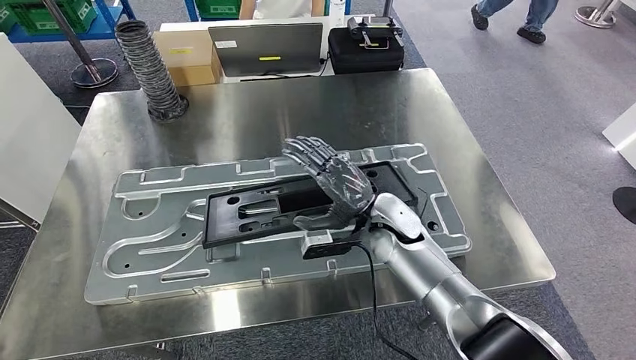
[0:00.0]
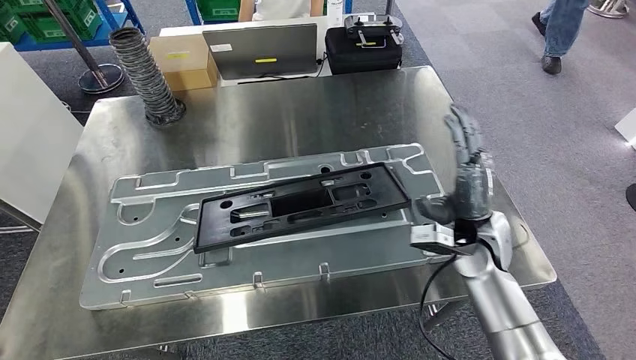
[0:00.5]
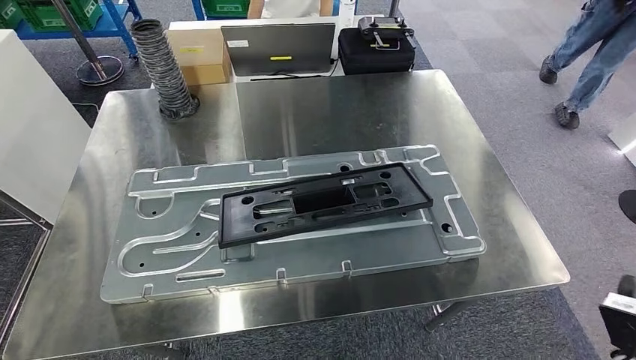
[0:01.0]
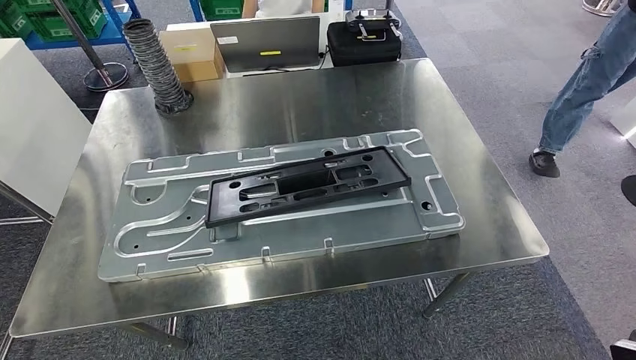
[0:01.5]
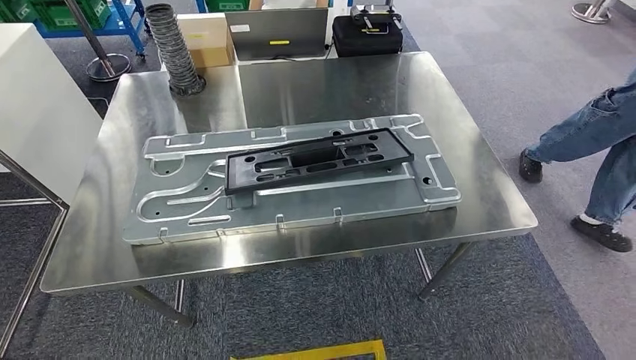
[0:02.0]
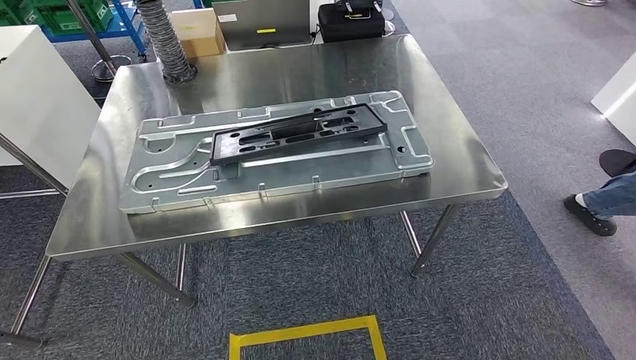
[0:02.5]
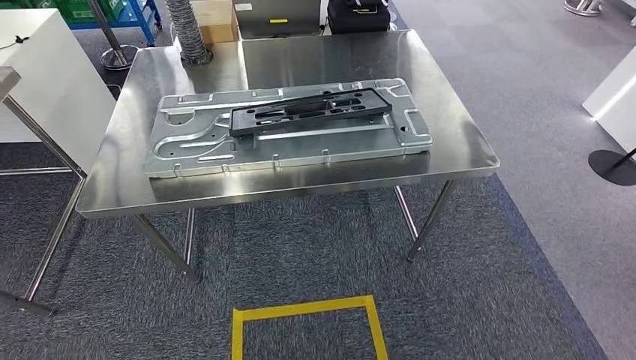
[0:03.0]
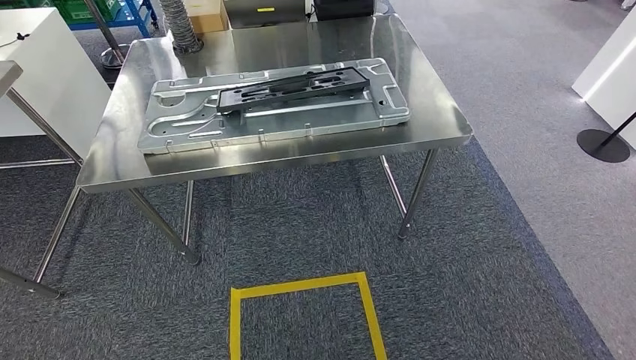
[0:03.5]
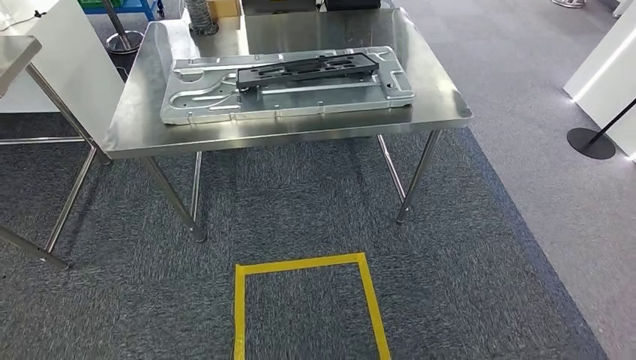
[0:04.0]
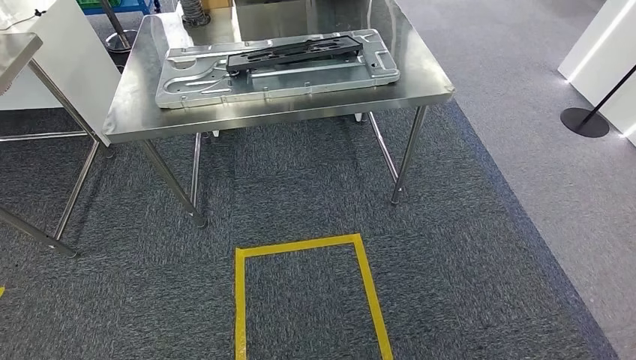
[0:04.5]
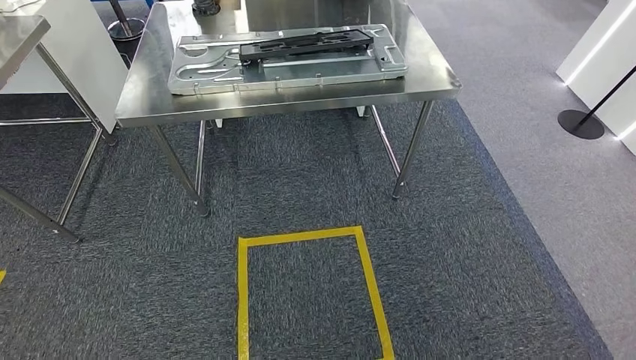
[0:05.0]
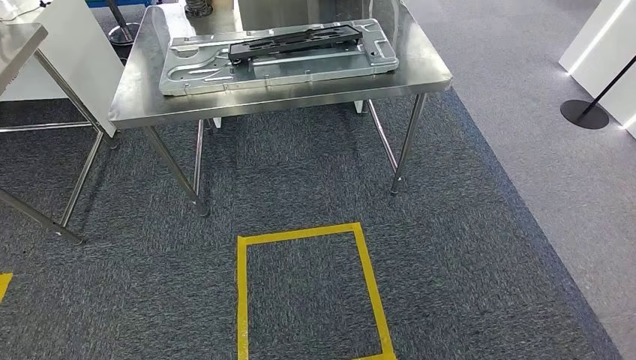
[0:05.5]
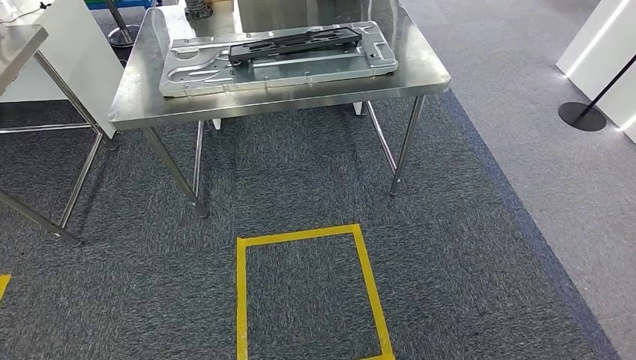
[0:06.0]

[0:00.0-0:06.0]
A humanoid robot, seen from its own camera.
Step, 0:01.5 to 0:06.0: Move to the initial position of the shelf.
